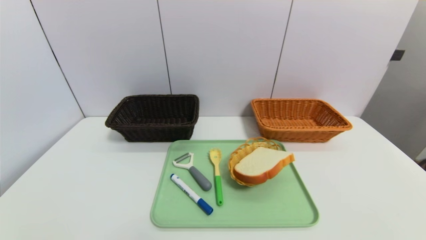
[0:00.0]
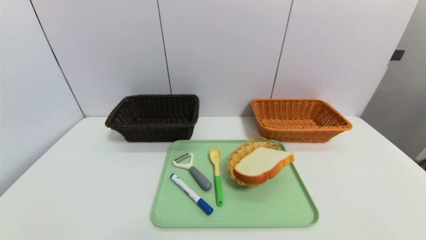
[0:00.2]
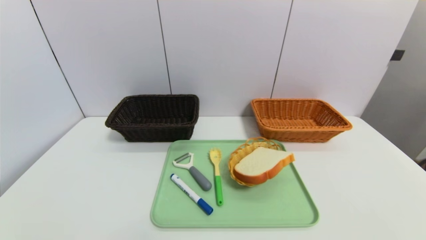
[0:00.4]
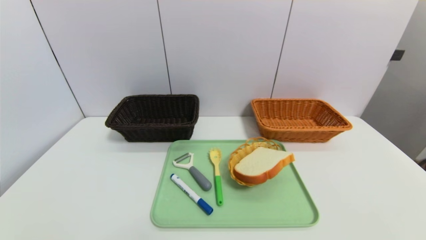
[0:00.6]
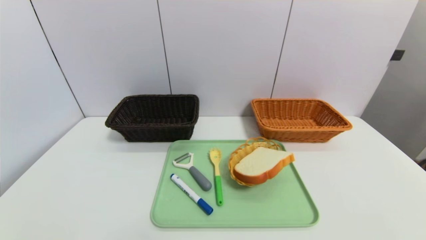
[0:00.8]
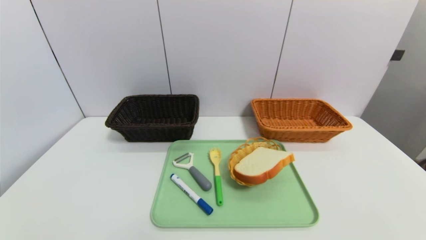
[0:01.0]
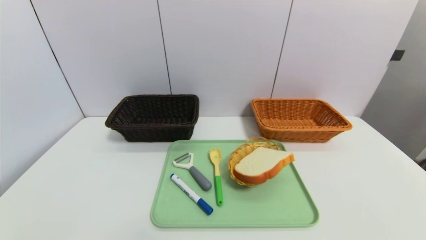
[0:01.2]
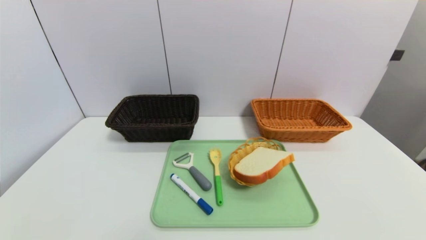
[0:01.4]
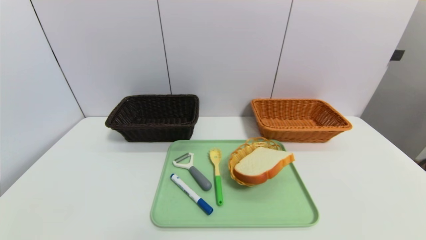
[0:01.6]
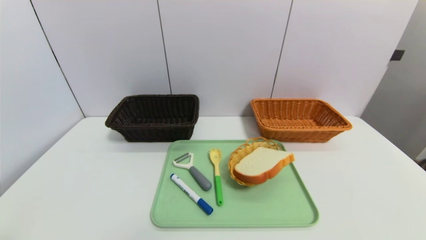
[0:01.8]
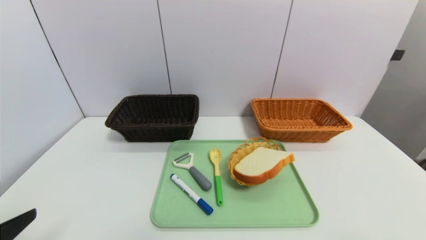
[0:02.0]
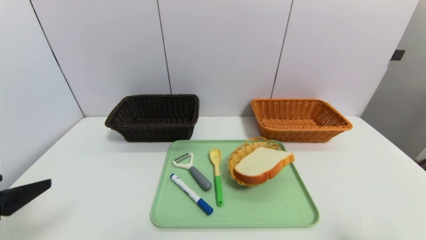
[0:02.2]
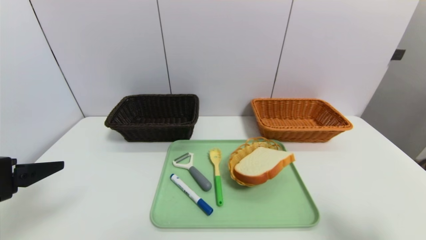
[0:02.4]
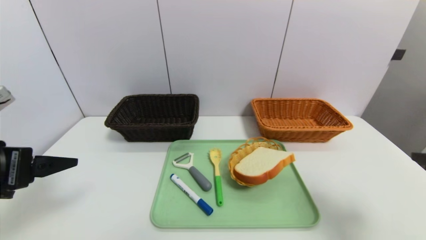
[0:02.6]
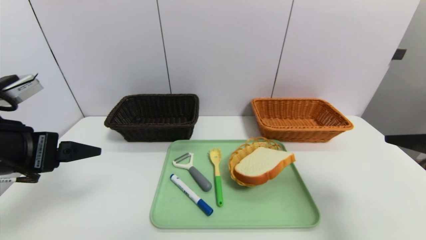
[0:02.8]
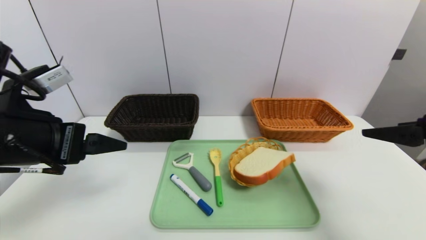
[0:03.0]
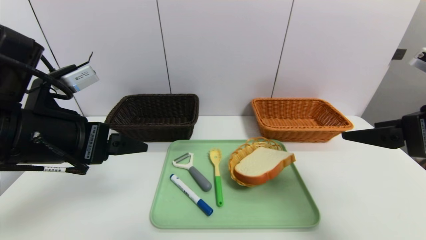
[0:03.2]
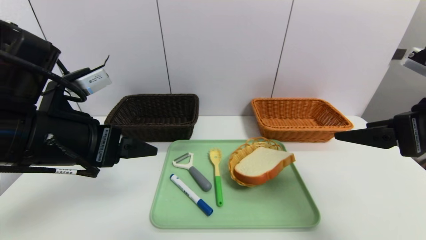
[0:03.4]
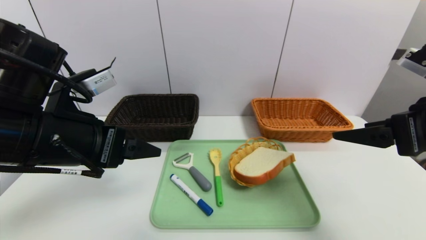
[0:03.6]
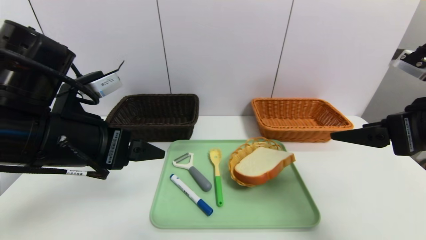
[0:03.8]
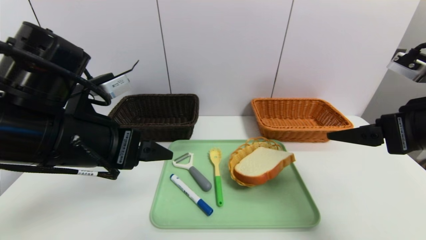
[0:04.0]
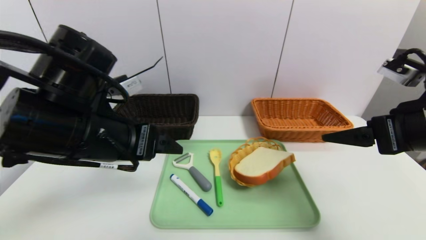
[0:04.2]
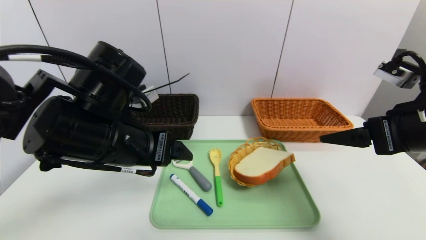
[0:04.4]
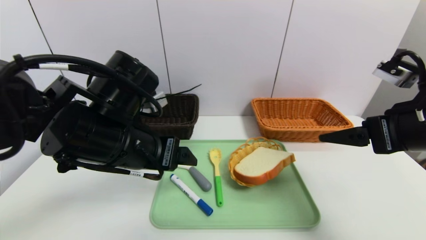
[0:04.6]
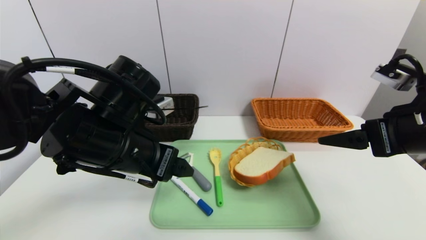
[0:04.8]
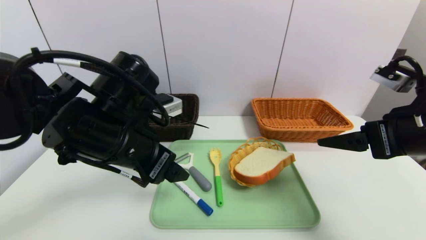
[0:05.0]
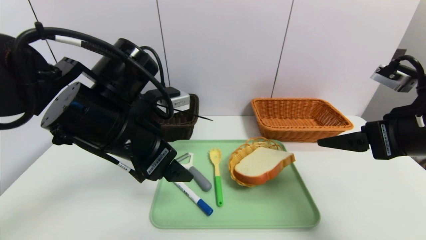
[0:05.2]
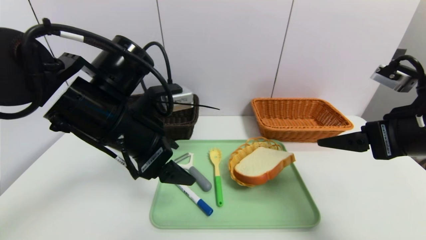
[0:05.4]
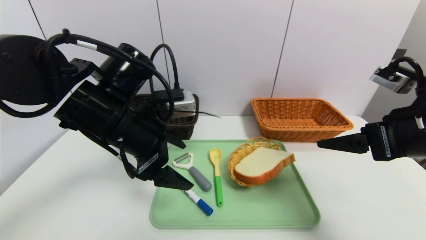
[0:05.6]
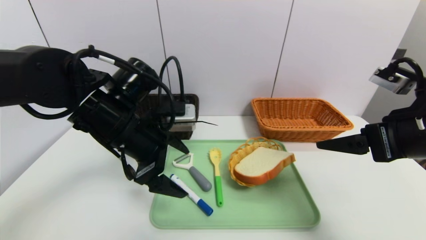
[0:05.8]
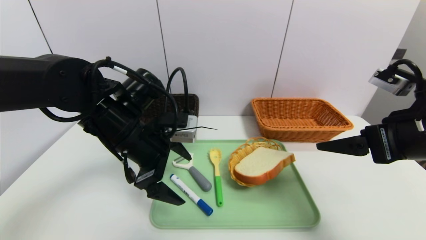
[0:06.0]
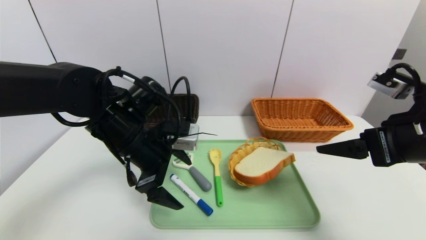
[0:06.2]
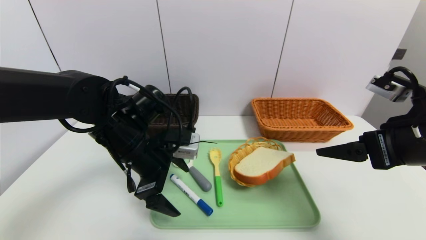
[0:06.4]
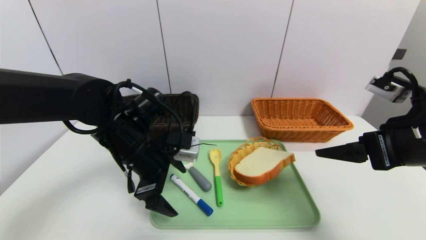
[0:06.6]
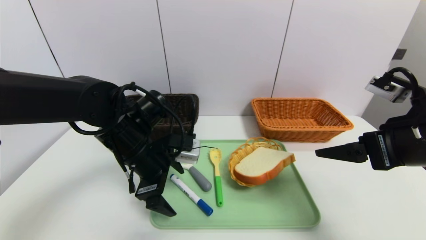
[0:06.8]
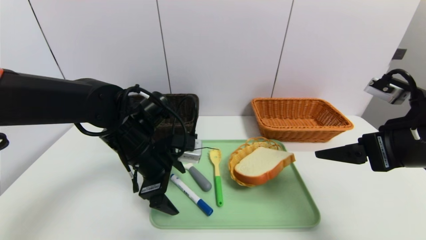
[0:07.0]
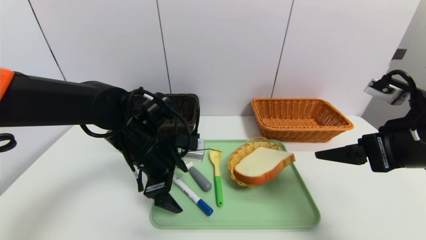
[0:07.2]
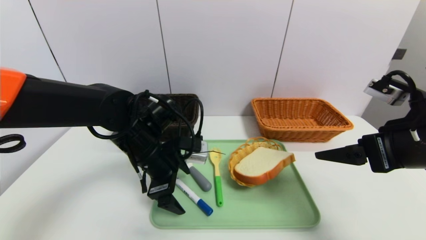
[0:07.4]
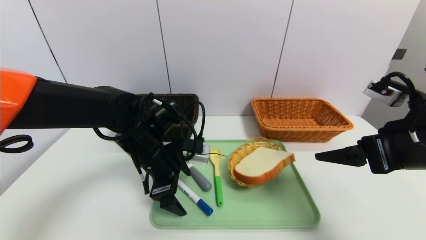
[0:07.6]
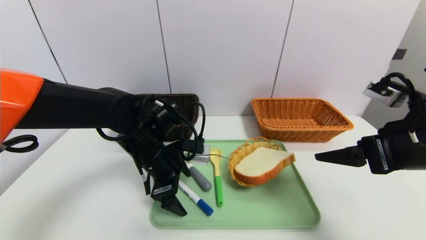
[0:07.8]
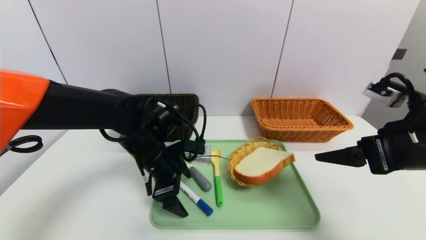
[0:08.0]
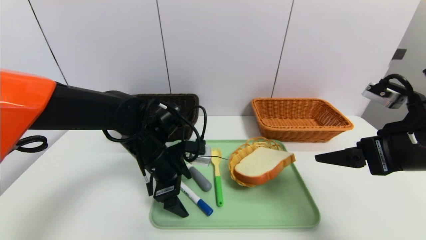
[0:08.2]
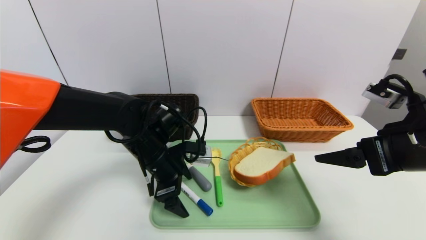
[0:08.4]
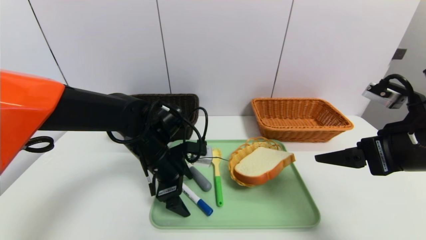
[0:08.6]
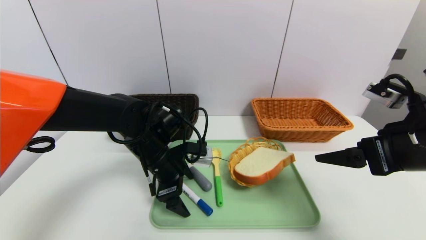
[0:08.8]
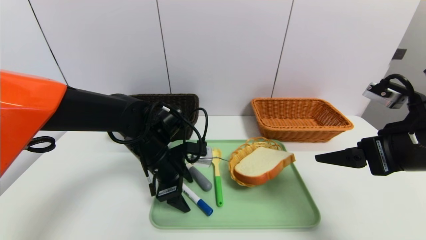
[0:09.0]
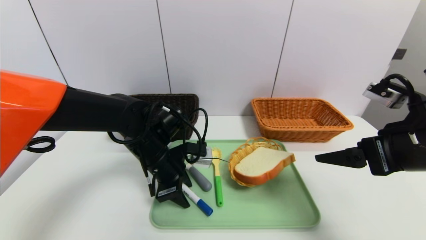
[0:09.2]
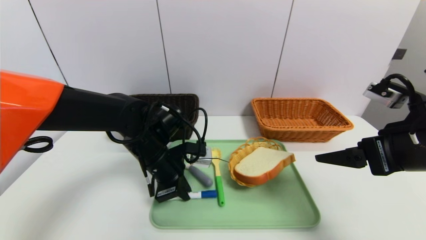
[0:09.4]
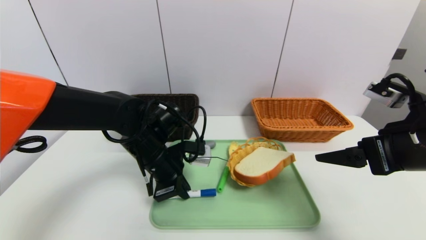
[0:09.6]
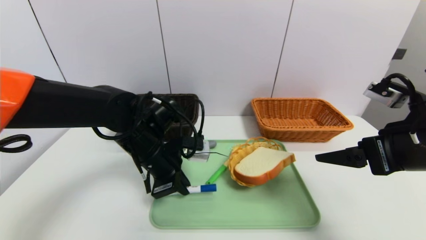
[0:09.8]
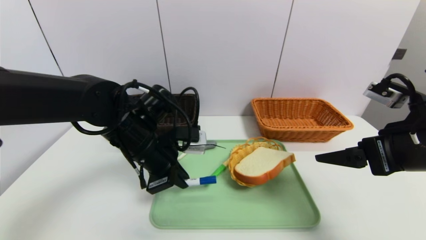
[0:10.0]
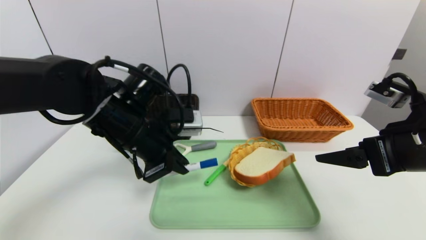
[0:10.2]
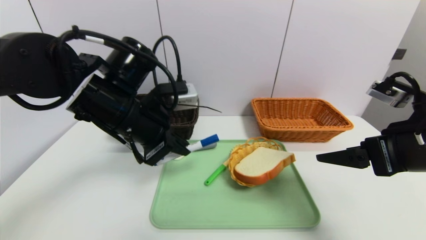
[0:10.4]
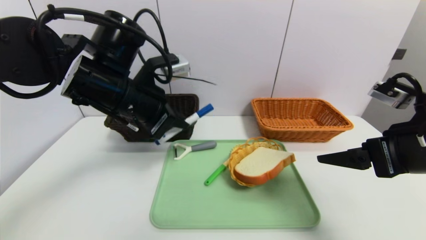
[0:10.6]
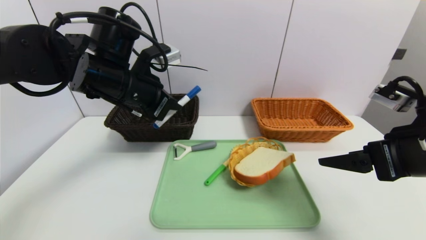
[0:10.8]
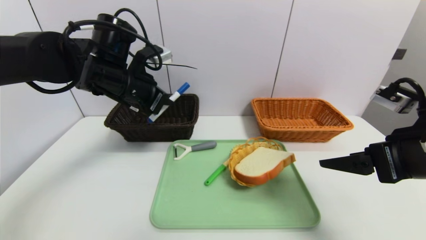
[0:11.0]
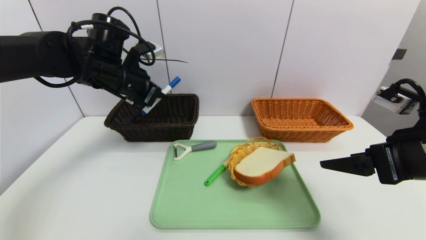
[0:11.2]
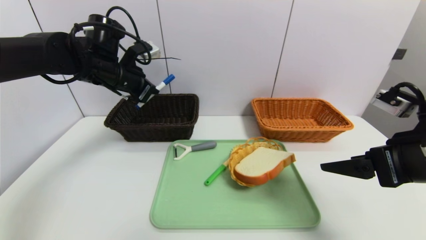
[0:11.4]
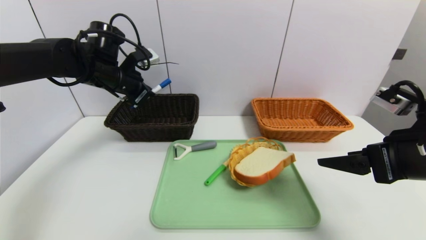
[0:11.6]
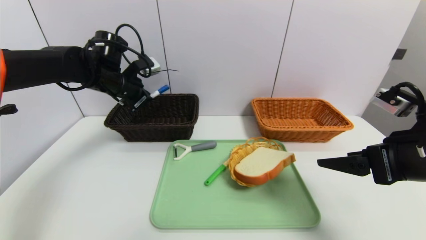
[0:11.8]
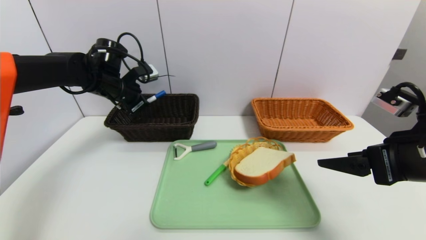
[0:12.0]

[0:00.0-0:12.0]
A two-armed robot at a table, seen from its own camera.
Task of the whole recording: place the food in the right basket with the right gripper, and place the non food items in the left basket with the left gripper.
0:01.6 to 0:03.0: The two grippers go roughly 25 cm forward and upward.
0:03.0 to 0:04.4: The left gripper is displaced to the right by approximately 10 cm.
0:04.4 to 0:06.0: The left gripper moves forward, about 5 cm.
0:06.0 to 0:07.6: The left gripper moves downward, approximately 5 cm.
0:07.6 to 0:09.0: The grippers stay close to where they were, moving slightly.
0:09.0 to 0:10.4: The left gripper is displaced upward by some 10 cm, and closes its fingers.
0:10.4 to 0:12.0: The left gripper moves forward and to the left, approximately 20 cm.

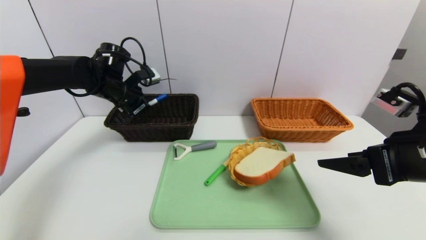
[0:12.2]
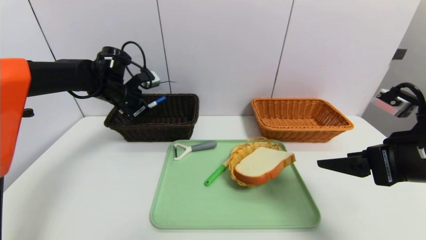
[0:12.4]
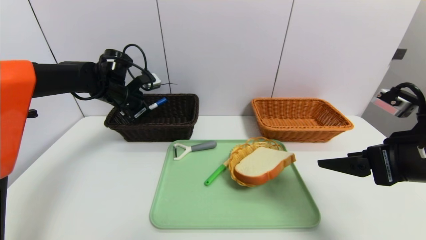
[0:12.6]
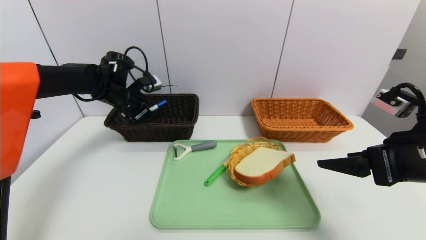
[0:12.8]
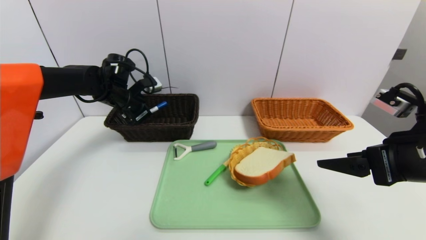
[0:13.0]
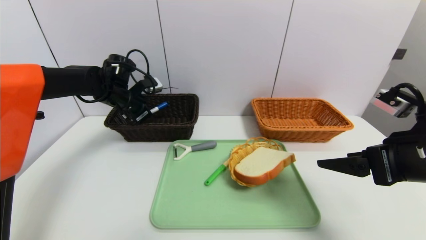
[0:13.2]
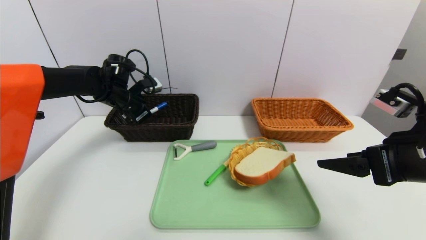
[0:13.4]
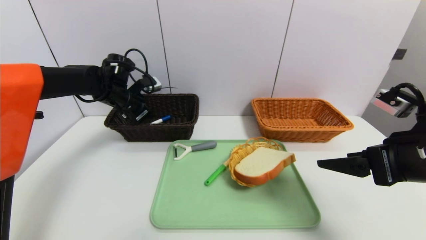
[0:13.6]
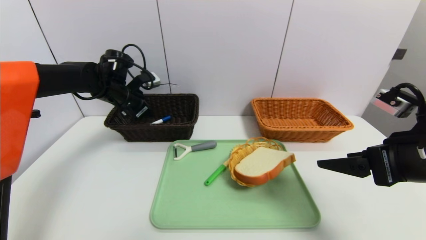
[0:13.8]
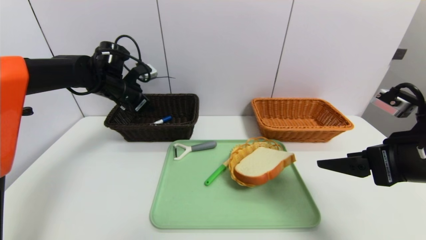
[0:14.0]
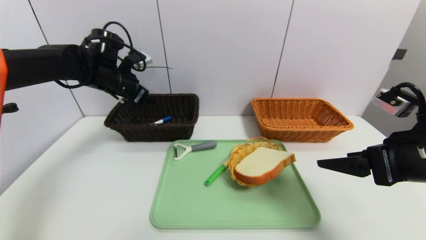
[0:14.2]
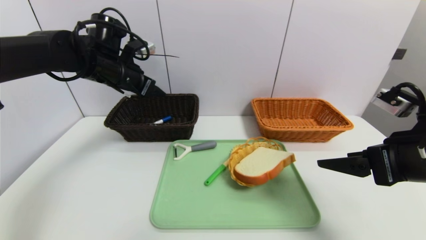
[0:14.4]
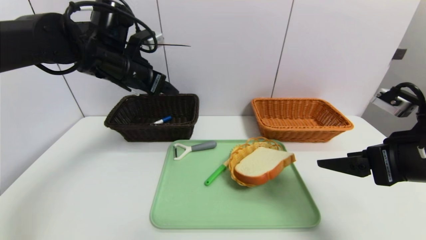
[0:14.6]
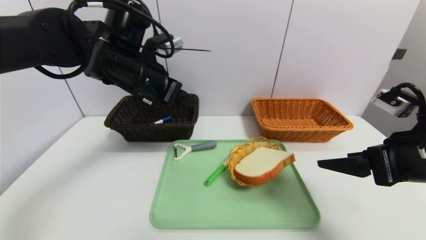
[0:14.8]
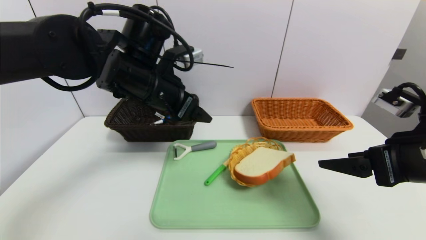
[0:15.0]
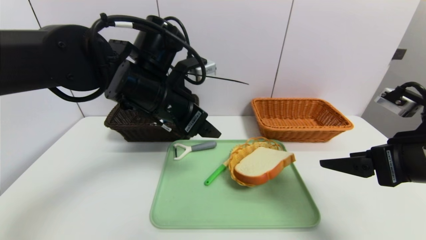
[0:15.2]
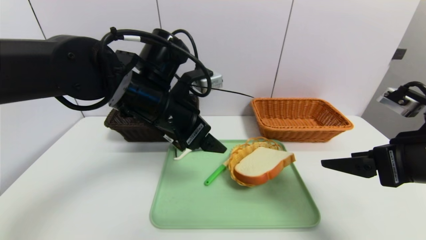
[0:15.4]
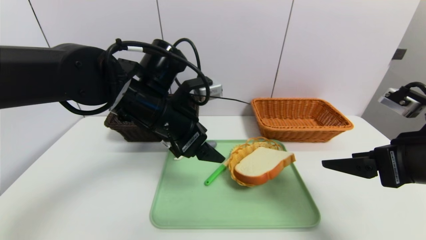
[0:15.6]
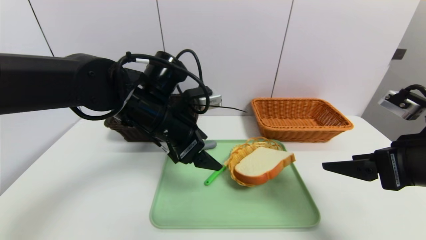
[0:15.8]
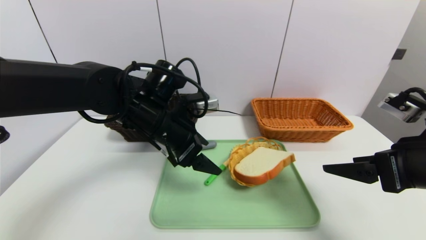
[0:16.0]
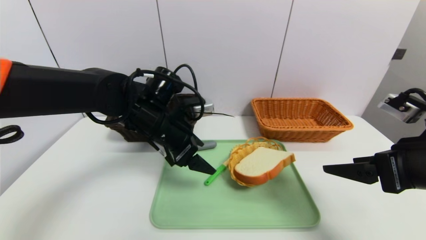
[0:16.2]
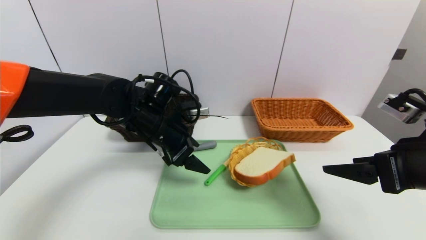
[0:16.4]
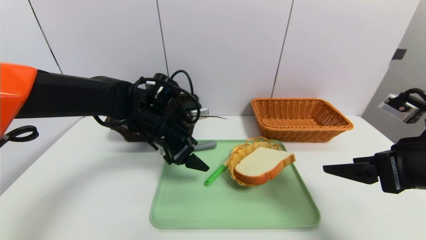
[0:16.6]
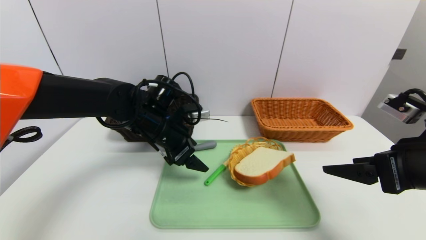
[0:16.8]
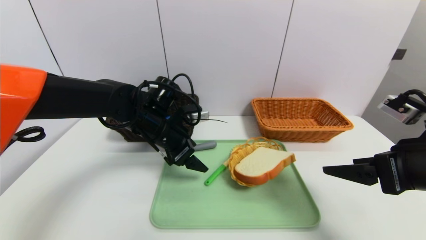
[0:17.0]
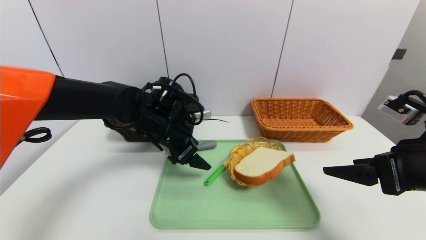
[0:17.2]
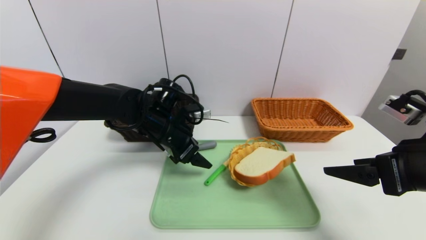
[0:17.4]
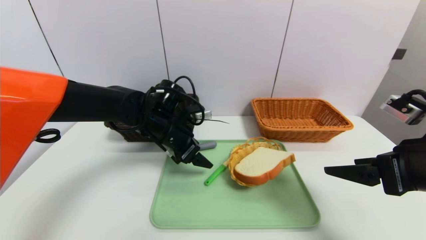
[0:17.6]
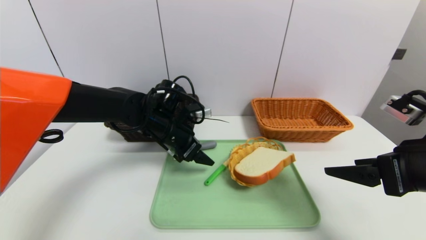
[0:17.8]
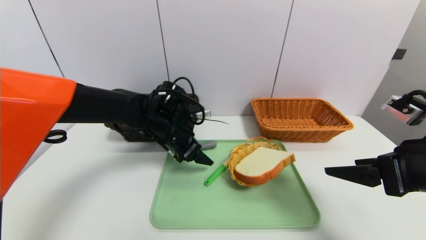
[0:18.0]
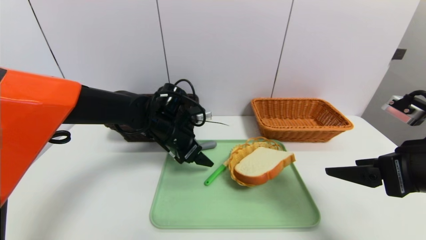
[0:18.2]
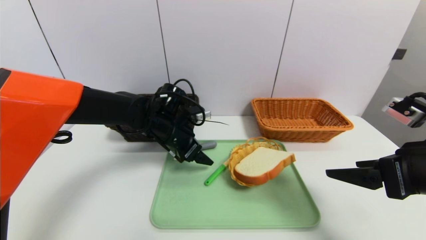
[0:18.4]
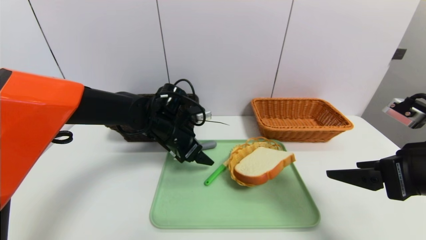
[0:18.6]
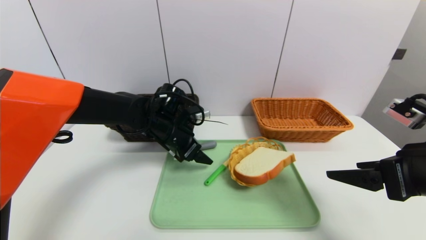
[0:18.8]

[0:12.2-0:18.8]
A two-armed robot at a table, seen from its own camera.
Task of the whole recording: place the food in the right basket with the right gripper, and place the non food items in the left basket with the left gripper.
0:12.2 to 0:13.8: The left gripper opens its fingers.
0:13.8 to 0:15.4: The left gripper travels backward and to the right by approximately 20 cm, and opens.
0:15.4 to 0:17.2: The left gripper heads downward and forward, covering about 10 cm.
0:17.2 to 0:18.8: There are only small adjustments of the grippers.
